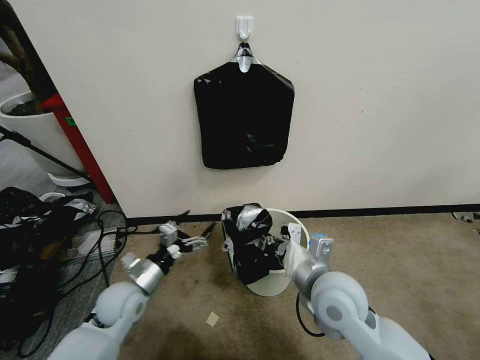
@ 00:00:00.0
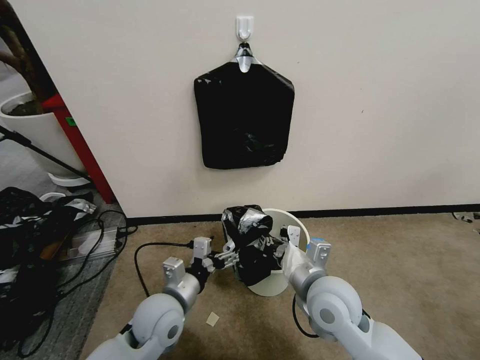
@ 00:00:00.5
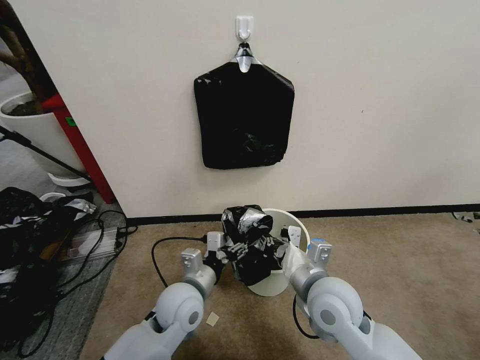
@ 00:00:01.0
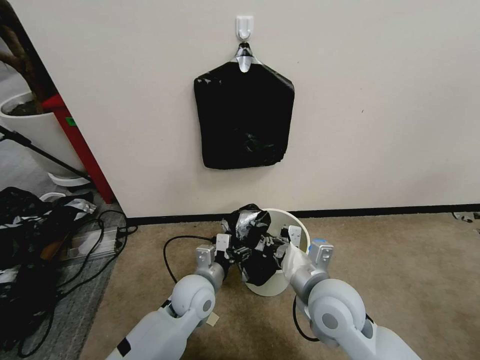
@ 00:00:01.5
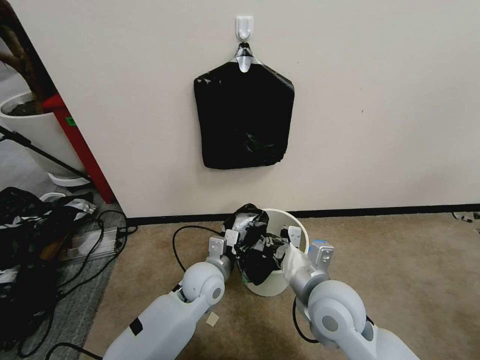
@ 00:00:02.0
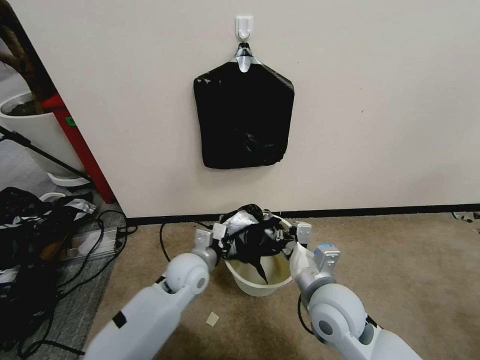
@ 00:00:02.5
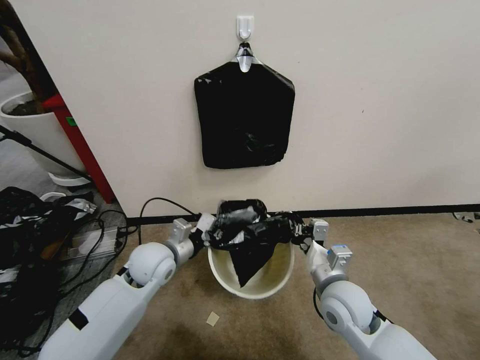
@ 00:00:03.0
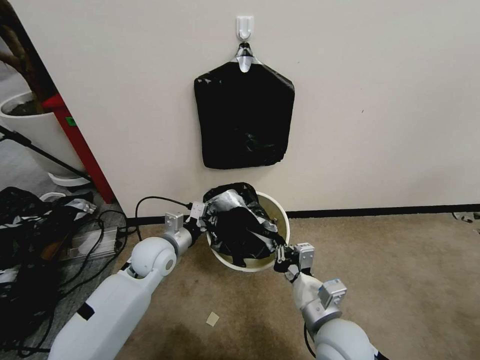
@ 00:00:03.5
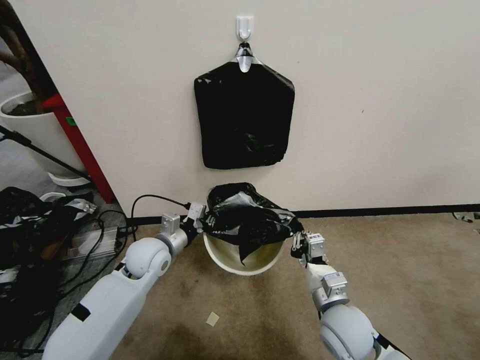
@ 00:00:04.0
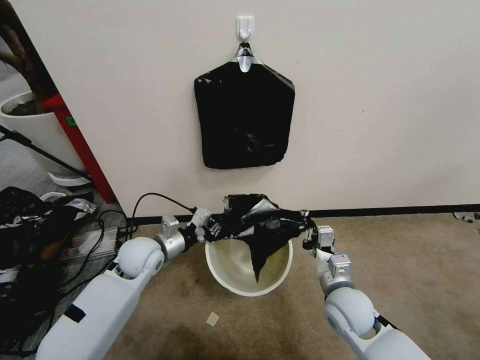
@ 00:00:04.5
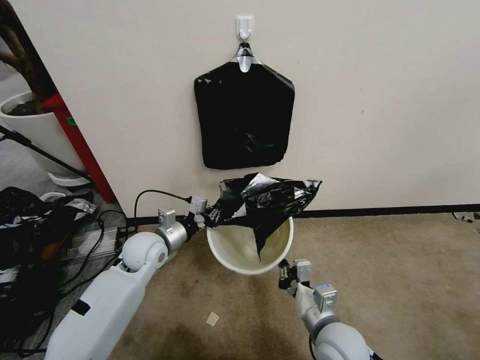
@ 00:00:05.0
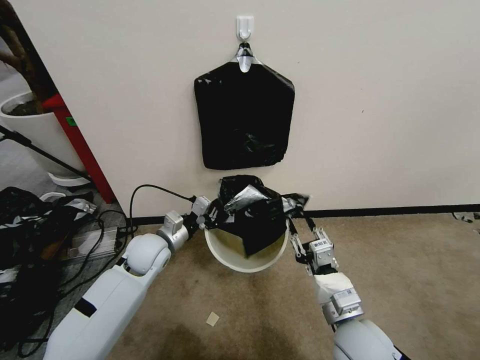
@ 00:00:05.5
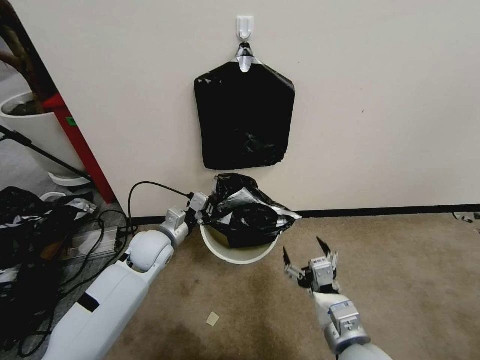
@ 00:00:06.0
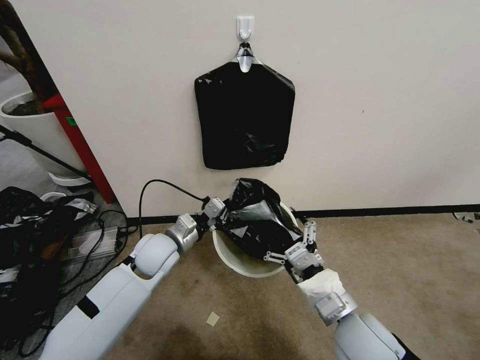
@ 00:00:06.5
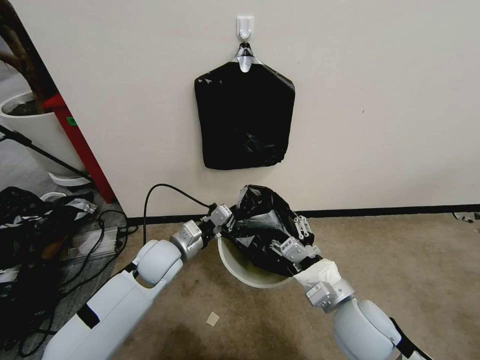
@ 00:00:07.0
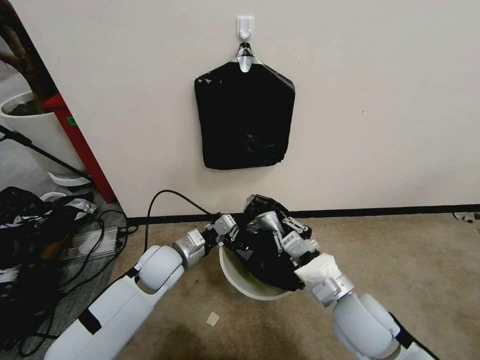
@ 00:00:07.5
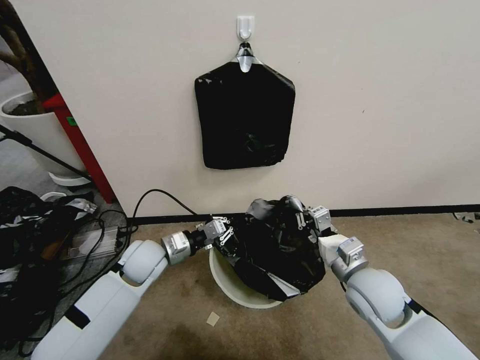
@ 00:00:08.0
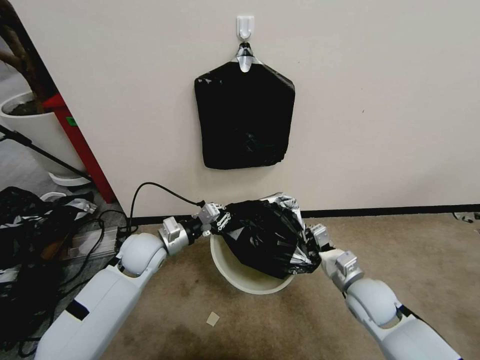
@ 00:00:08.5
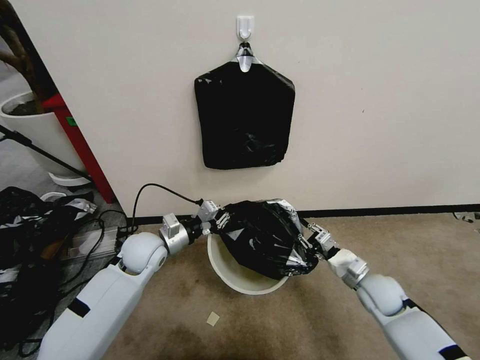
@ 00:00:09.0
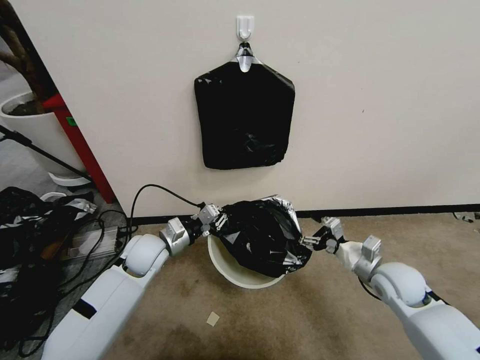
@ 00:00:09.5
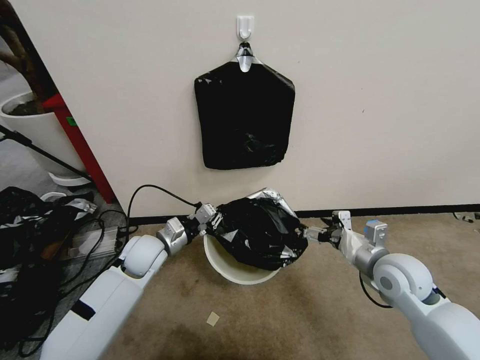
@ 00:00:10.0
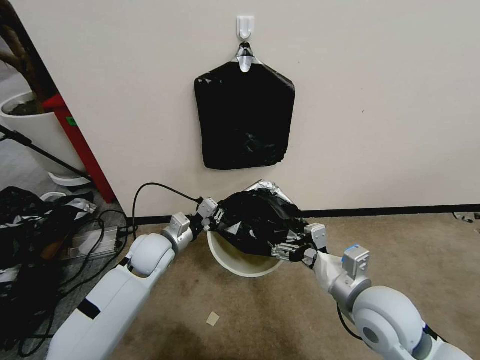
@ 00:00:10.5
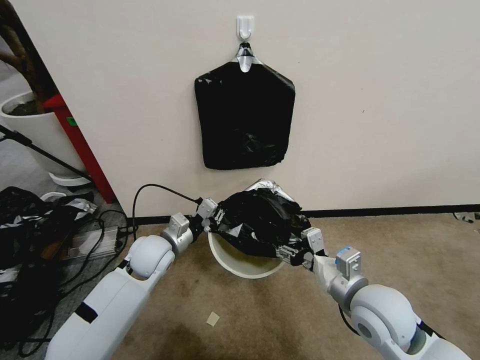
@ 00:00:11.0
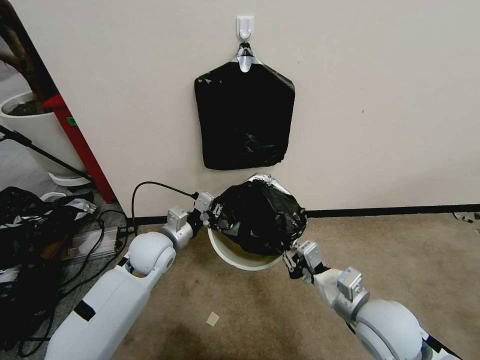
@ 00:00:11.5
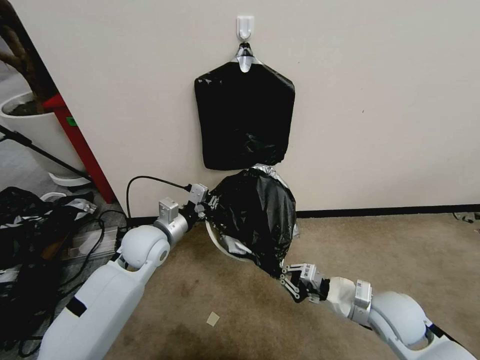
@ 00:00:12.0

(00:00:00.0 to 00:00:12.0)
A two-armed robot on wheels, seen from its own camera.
Task of the whole recording: Place a trash bag onto the trash bin.
00:00:00.0 - 00:00:02.0: The left gripper shifts about 20 cm to the right, and closes up.
00:00:02.0 - 00:00:04.0: The right gripper is displaced downward by approximately 10 cm, while the left gripper is displaced to the left by some 15 cm, and closes.
00:00:04.0 - 00:00:06.0: The right gripper moves backward and upward, about 10 cm, and opens its fingers.
00:00:06.0 - 00:00:08.0: The right gripper is displaced forward and to the right by approximately 15 cm, and closes its fingers.
00:00:08.0 - 00:00:10.0: The right gripper shifts some 5 cm to the right, travels downward and back again, roughly 10 cm each way, and opens its fingers.
00:00:10.0 - 00:00:12.0: The right gripper travels backward and downward by about 10 cm, and closes its fingers. Meanwhile the left gripper moves upward, roughly 5 cm.

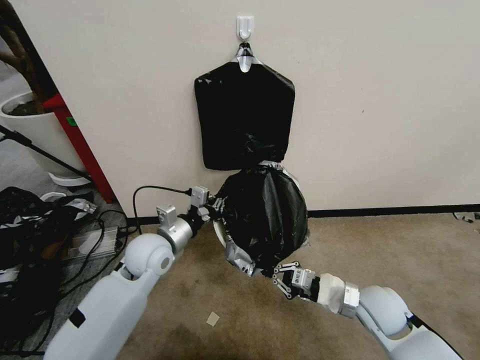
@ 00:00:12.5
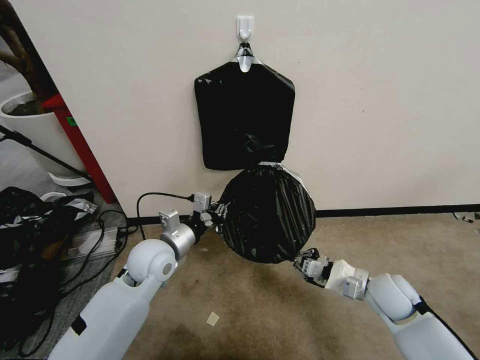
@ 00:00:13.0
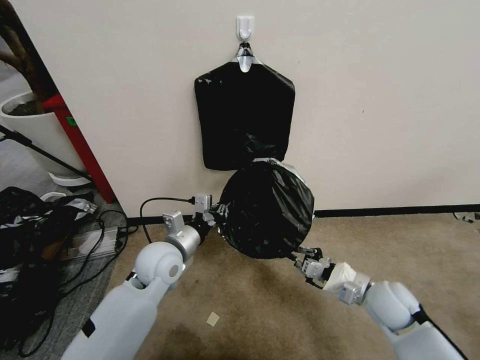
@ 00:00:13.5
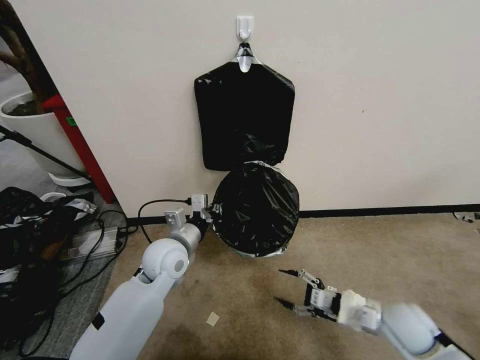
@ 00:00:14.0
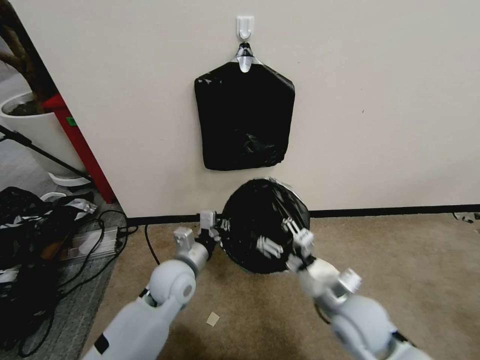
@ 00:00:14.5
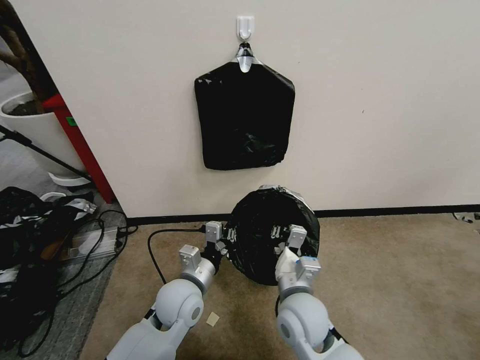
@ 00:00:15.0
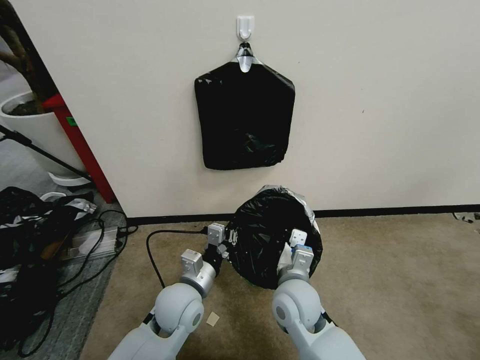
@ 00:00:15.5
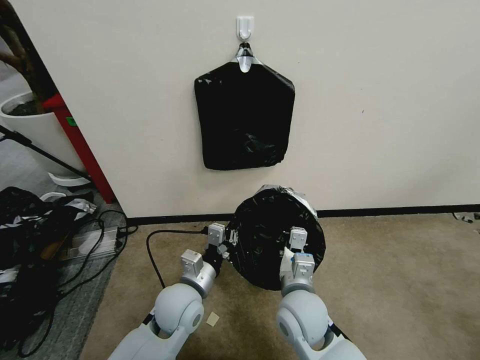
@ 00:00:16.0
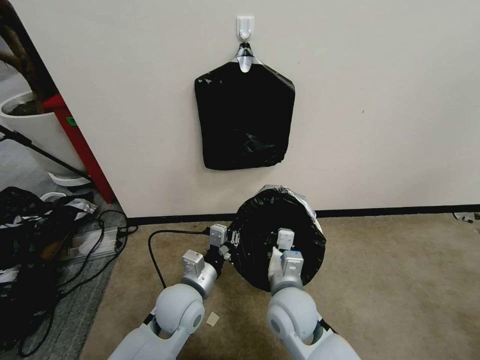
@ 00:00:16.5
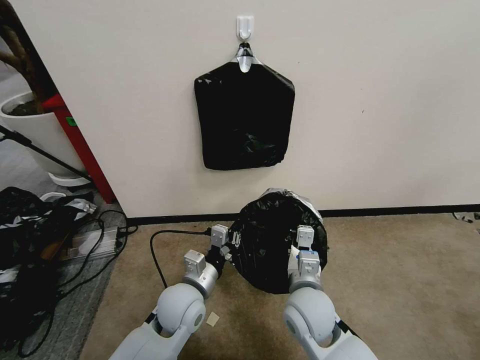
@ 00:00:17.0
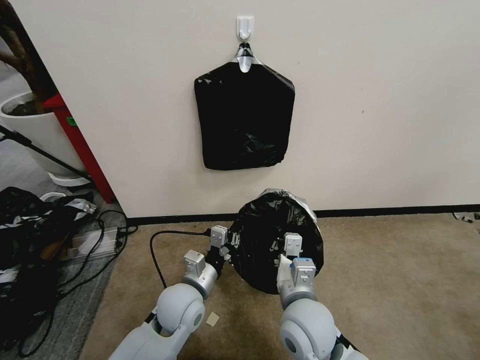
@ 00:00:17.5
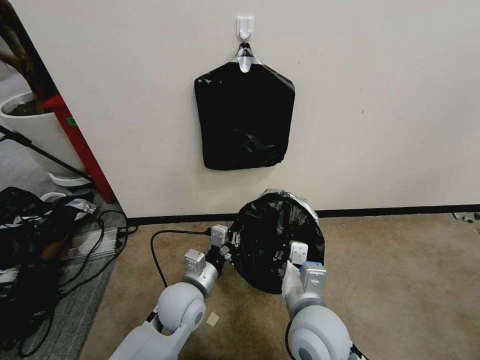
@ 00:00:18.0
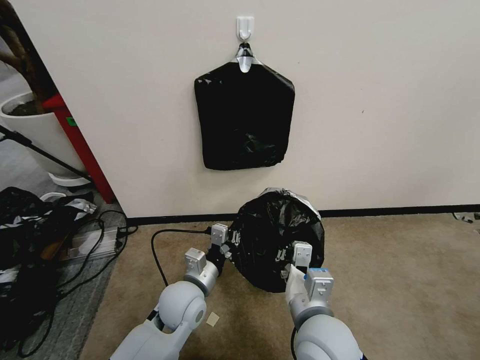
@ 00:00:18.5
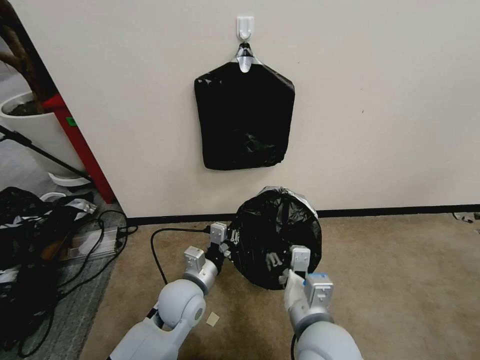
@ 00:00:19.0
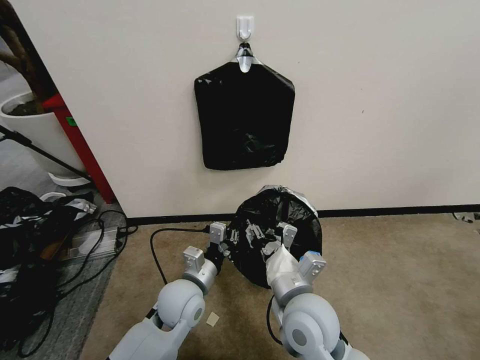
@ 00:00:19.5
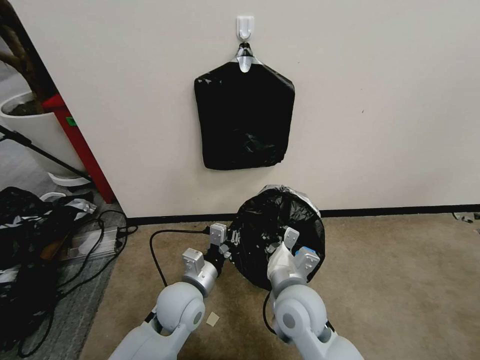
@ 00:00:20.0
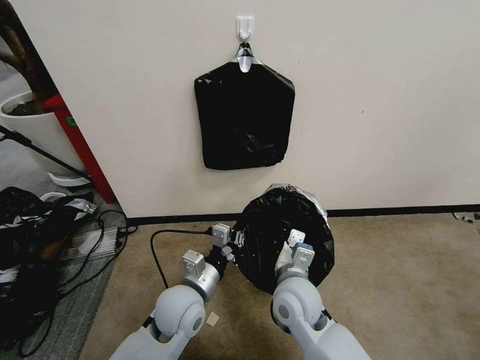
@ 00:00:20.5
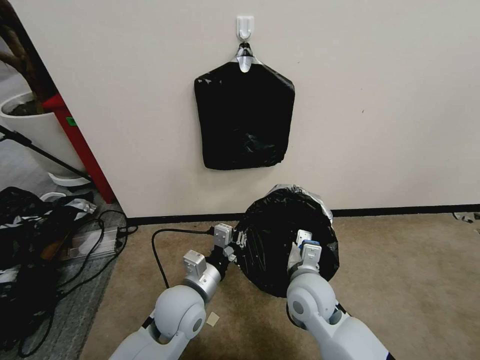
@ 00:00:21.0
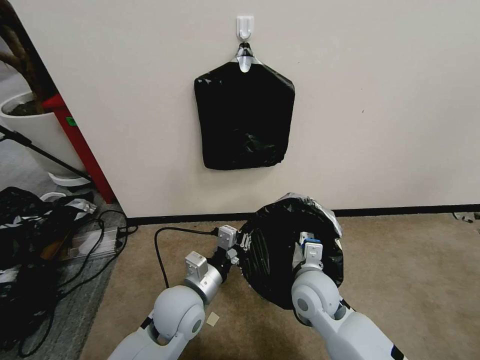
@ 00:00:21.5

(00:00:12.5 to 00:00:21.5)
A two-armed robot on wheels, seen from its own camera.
Task of the whole recording: Place a trash bag onto the trash bin.
00:00:12.5 - 00:00:14.5: The right gripper shifts approximately 10 cm to the left and upward, and opens its fingers. The left gripper goes about 5 cm to the right and downward.
00:00:14.5 - 00:00:17.0: The left gripper moves about 5 cm. Meanwhile the right gripper shifts some 10 cm to the left, and closes up.
00:00:17.0 - 00:00:19.5: The right gripper goes roughly 5 cm upward, and opens.
00:00:19.5 - 00:00:21.5: The right gripper heads forward and downward, covering about 10 cm, and closes up.

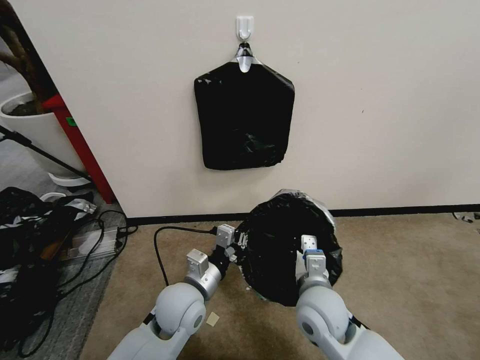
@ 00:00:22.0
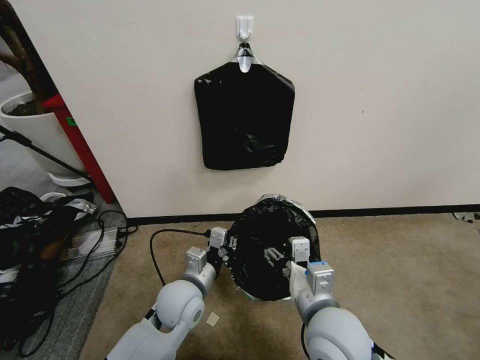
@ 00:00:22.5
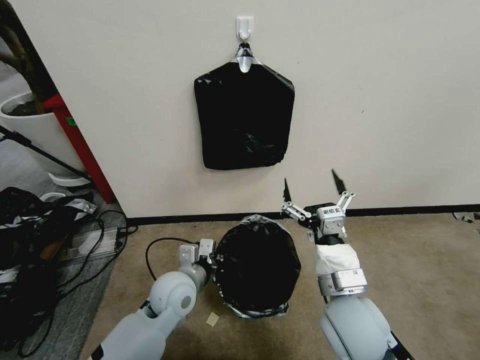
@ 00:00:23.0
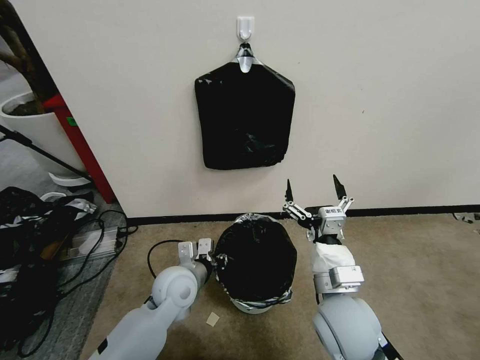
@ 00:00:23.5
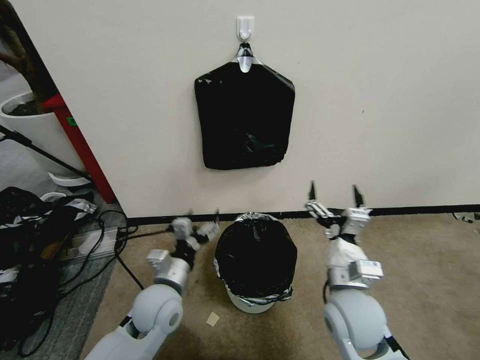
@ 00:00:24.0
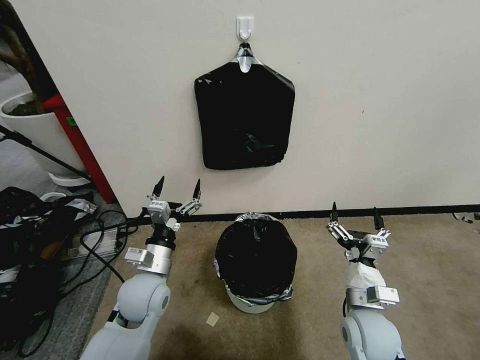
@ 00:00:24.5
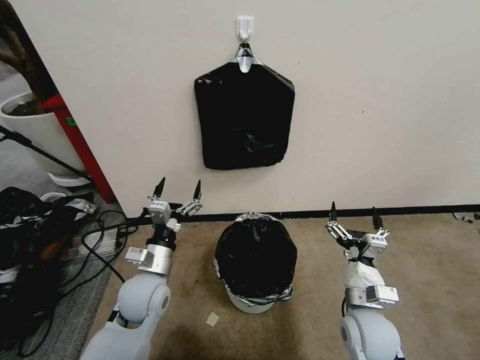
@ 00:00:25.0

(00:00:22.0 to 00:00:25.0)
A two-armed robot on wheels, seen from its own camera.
Task of the whole recording: Place a trash bag onto the trash bin.
00:00:22.0 - 00:00:23.5: The right gripper goes some 5 cm upward, and opens up.
00:00:23.5 - 00:00:25.0: The right gripper heads downward and to the right, covering some 15 cm, while the left gripper moves to the left, approximately 5 cm, and opens.
